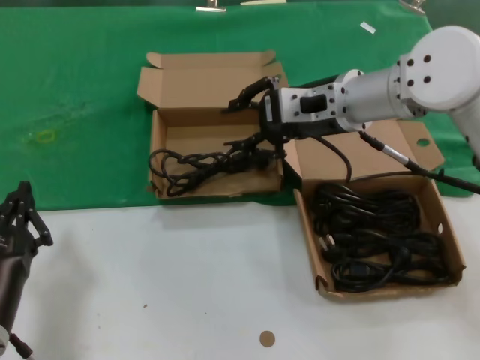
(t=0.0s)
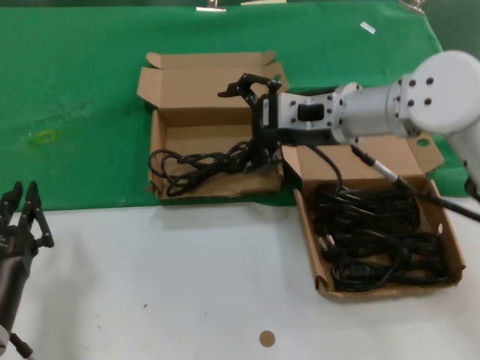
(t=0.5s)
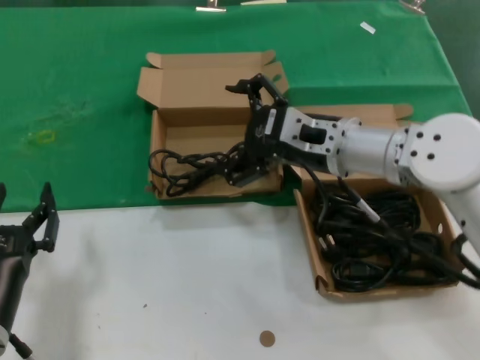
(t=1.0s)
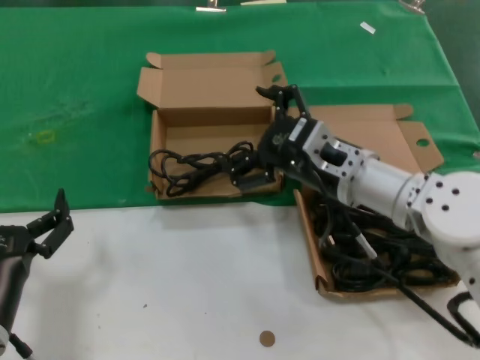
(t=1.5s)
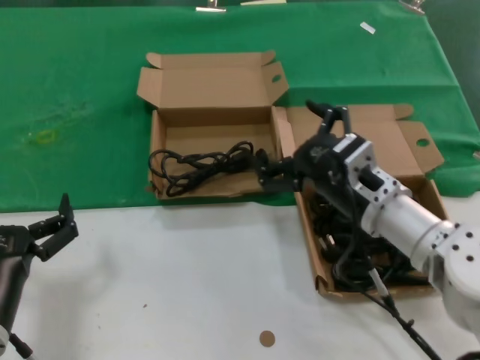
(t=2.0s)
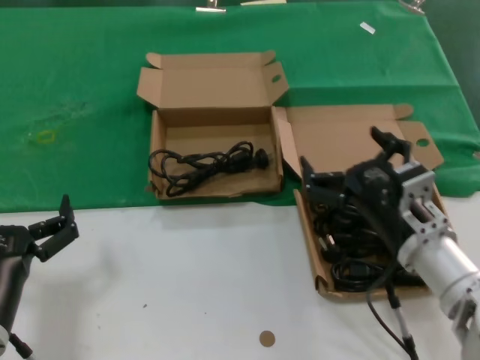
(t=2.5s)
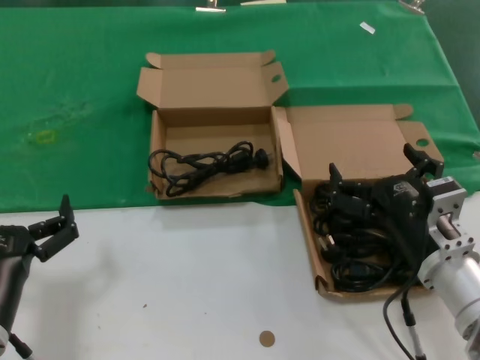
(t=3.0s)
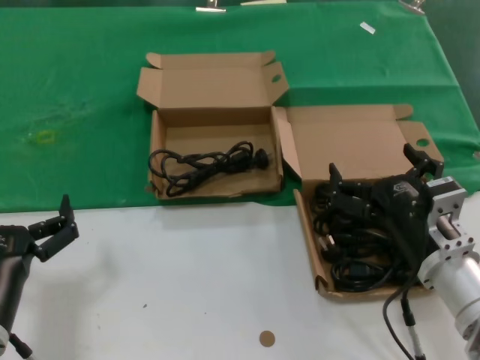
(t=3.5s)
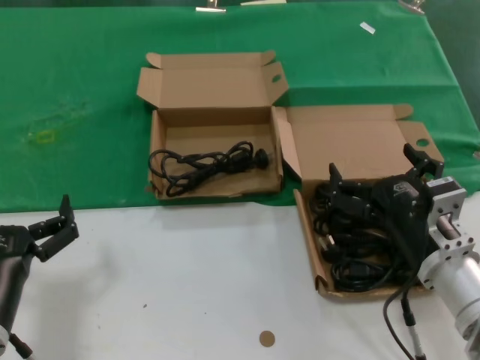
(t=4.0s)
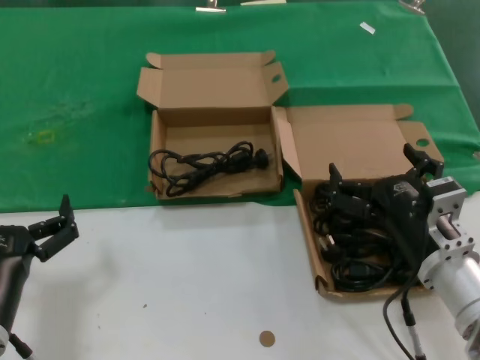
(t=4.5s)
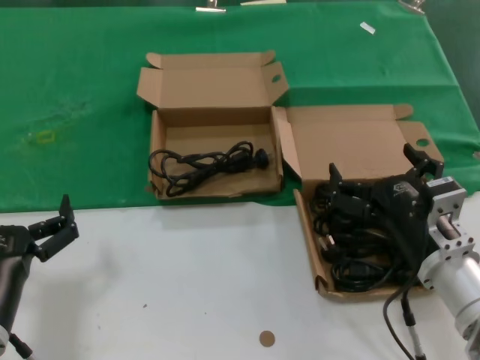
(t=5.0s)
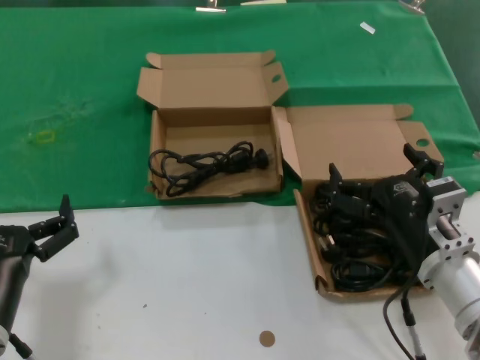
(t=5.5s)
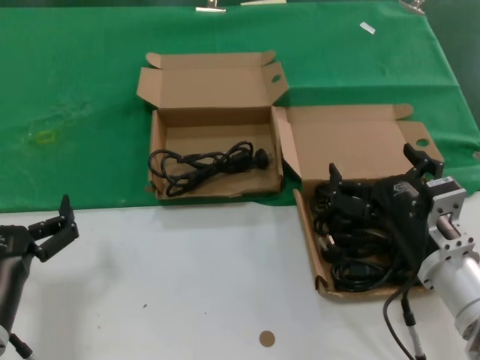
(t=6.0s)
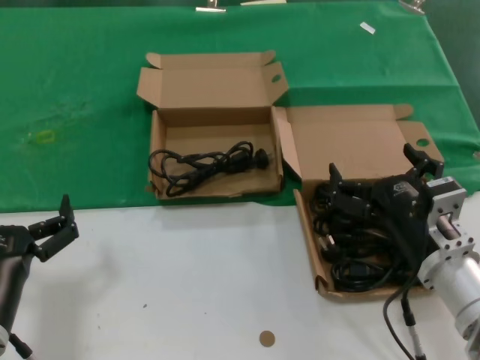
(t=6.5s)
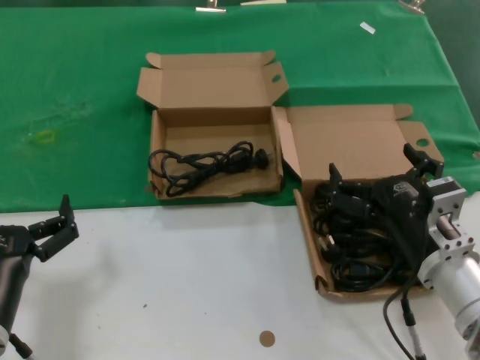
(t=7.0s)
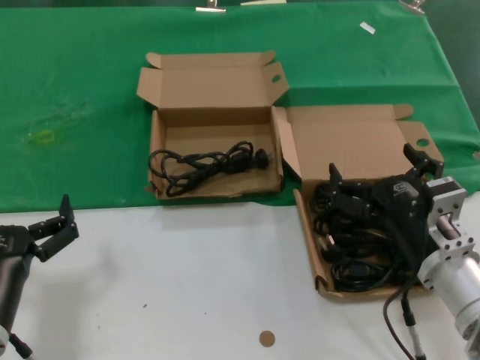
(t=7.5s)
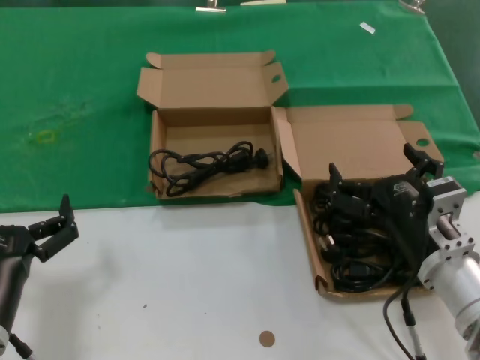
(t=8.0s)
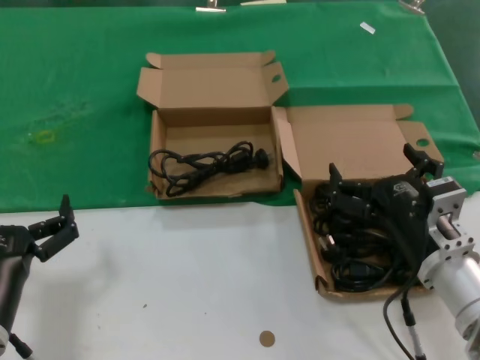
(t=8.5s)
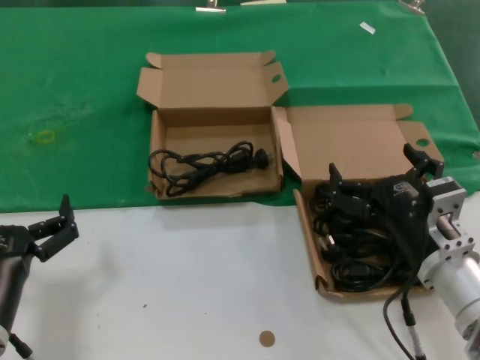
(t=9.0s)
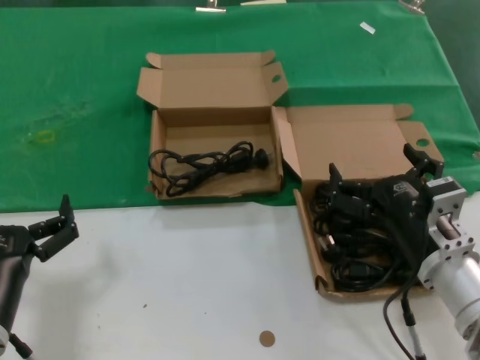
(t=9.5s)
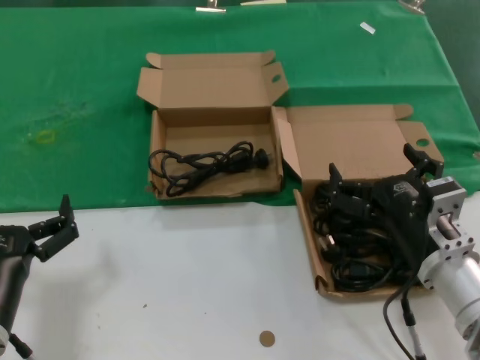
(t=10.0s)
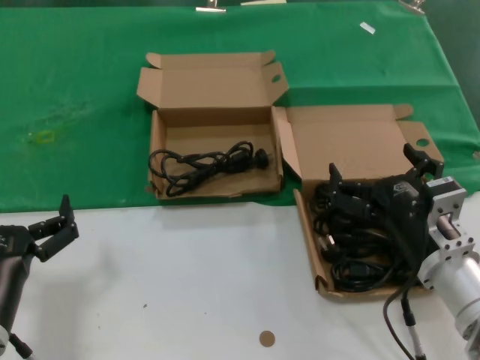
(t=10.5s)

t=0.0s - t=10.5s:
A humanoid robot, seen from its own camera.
Task of the whole recording: take the parts from the box containing them and put them into an empty box.
t=0.0s - t=2.0s: The right hand shifts roughly 20 cm downward and backward.
t=2.0s - t=4.0s: The right hand moves backward, about 10 cm.
t=4.0s - t=10.5s: Neither hand changes place.

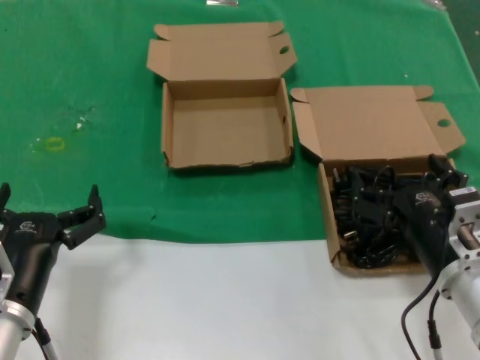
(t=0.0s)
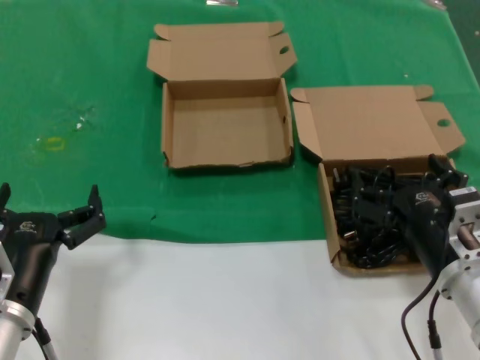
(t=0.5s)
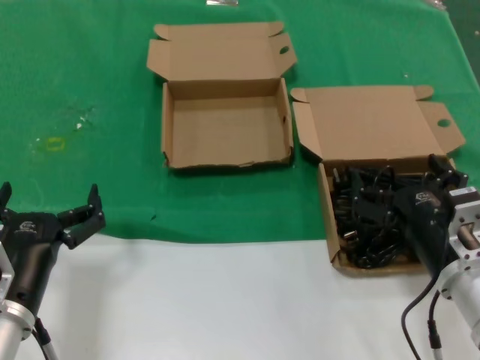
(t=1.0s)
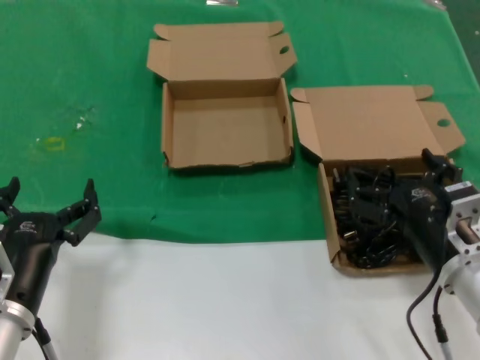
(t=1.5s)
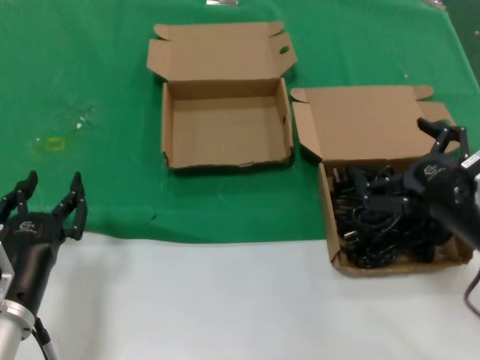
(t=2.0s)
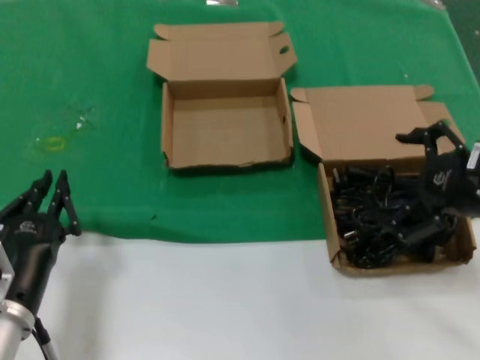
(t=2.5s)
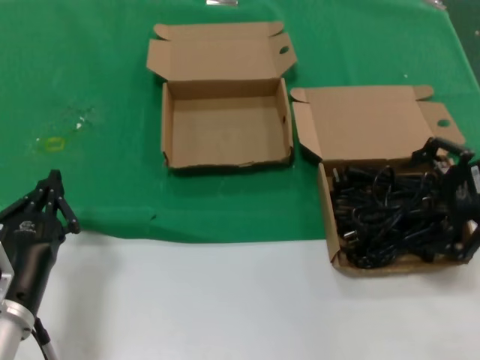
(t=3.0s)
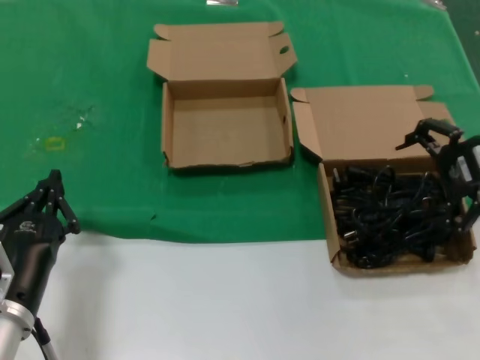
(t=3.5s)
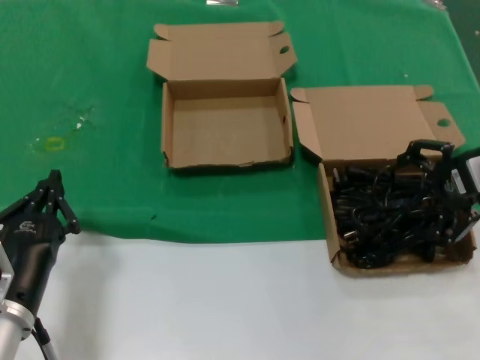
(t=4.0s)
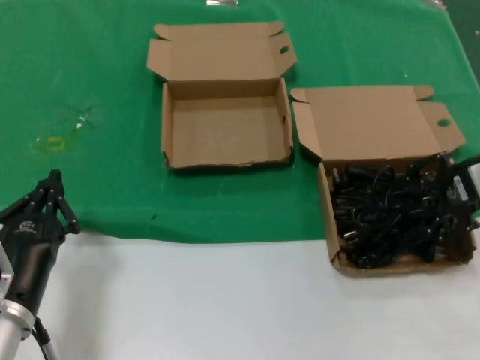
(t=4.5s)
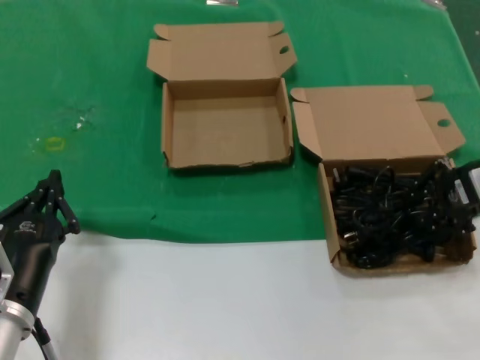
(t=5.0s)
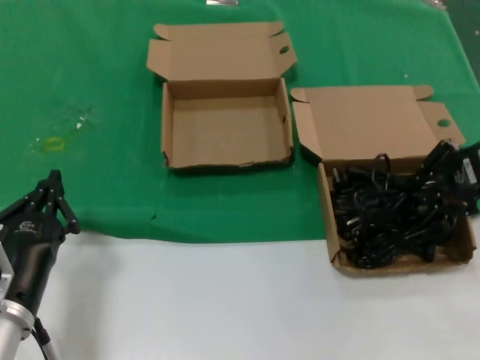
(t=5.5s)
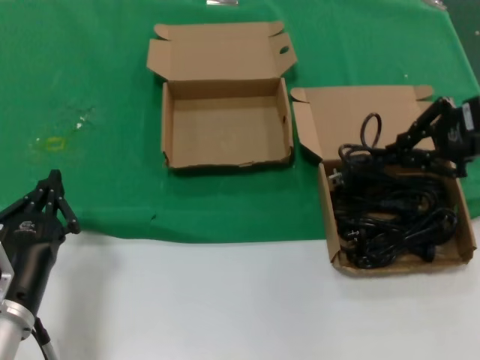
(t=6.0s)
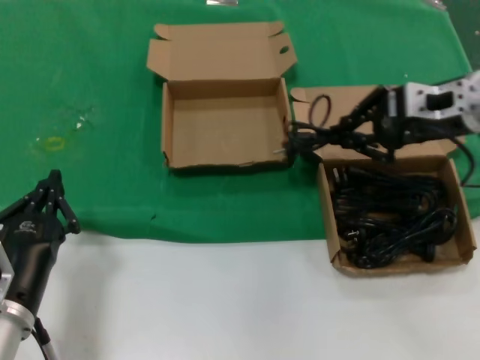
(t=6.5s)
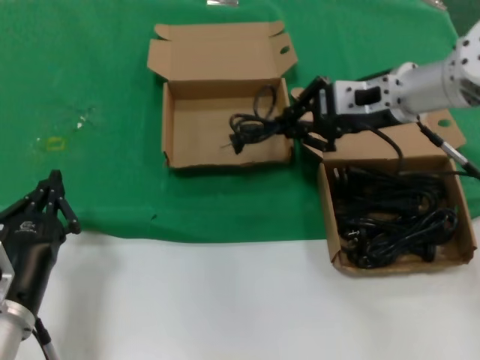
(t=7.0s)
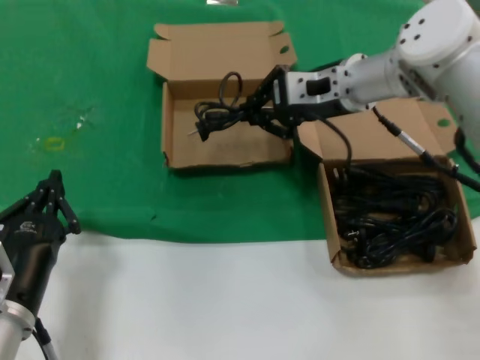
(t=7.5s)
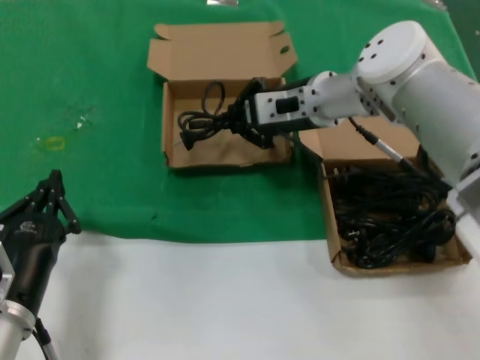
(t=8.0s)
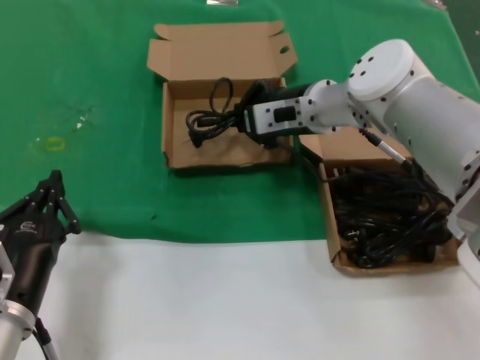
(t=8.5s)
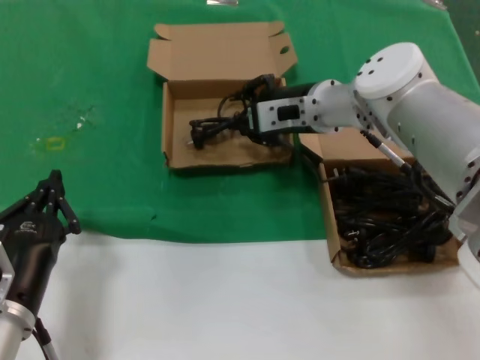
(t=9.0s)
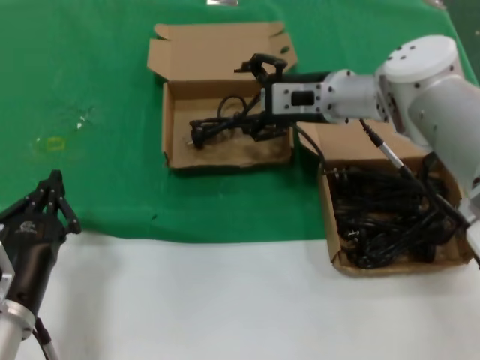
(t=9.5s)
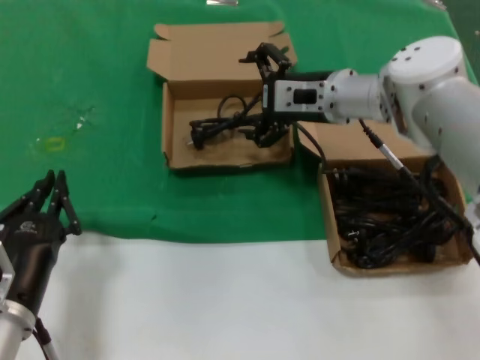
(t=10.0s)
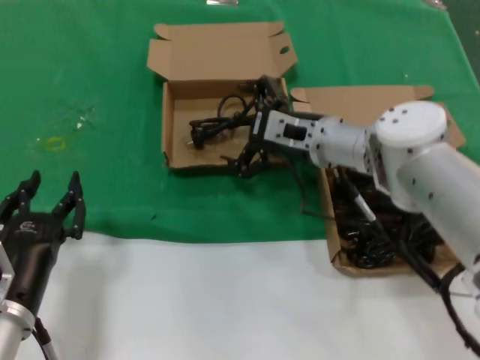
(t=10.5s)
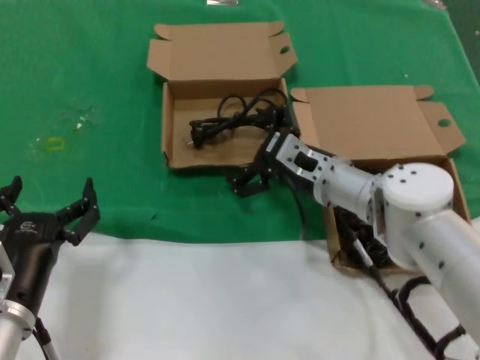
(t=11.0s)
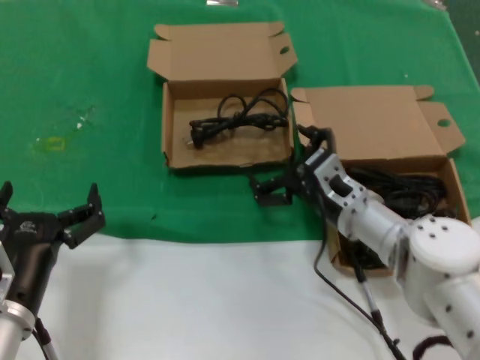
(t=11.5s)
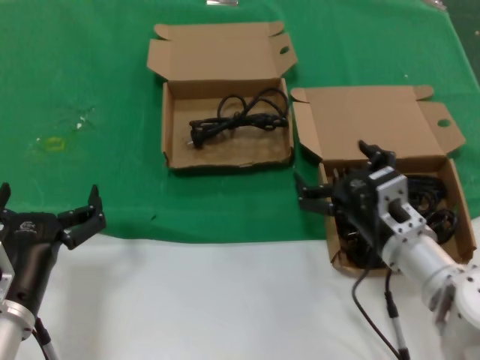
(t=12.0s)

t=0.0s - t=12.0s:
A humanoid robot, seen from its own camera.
Task of the whole recording: take the parts from the box containing them and put them into an empty box.
Step, t=0.0s - t=4.5s: Grasp the data cable.
Step, t=5.0s - t=8.5s: Place the data cable in the another box.
t=0.0s - t=2.0s: The right hand travels upward and to the right by about 10 cm.
t=2.0s - t=4.0s: The right hand goes roughly 20 cm forward, upward and to the right.
t=4.0s - t=6.0s: The right hand heads upward, covering roughly 5 cm.
t=6.0s - t=8.0s: The right hand goes about 25 cm to the left and forward.
t=8.0s - t=10.0s: The hands stay close to where they were, moving slightly.
t=10.0s - t=12.0s: The right hand heads backward and downward, covering some 25 cm.

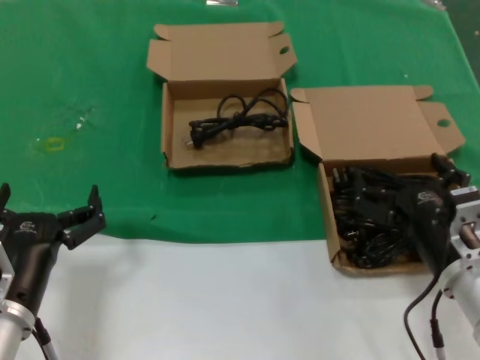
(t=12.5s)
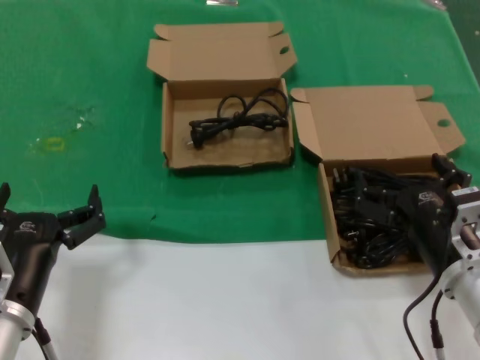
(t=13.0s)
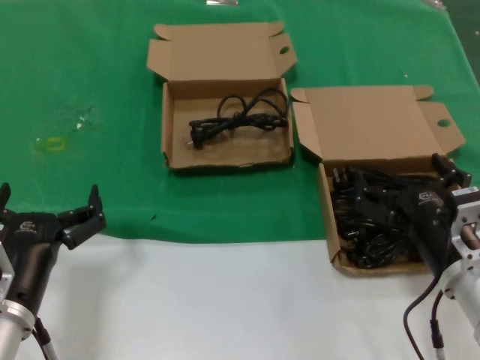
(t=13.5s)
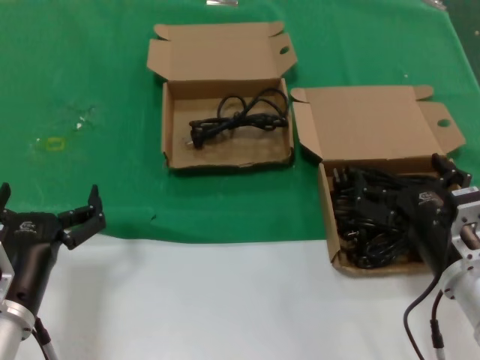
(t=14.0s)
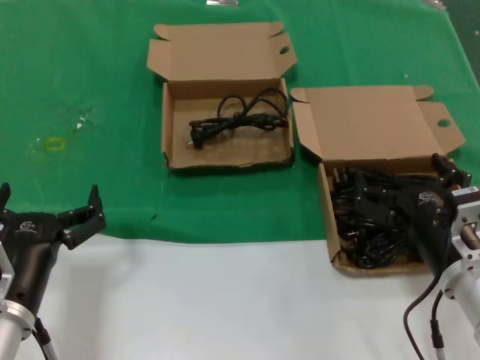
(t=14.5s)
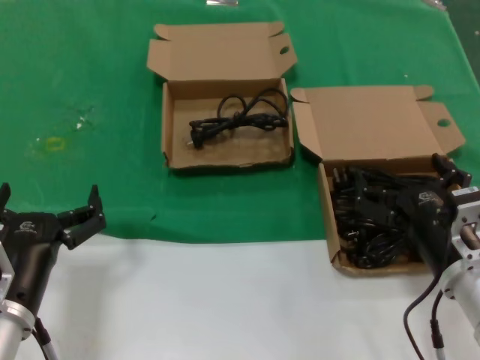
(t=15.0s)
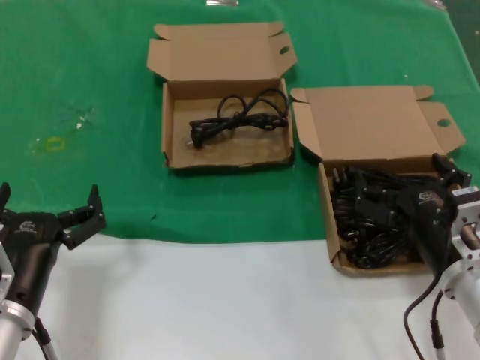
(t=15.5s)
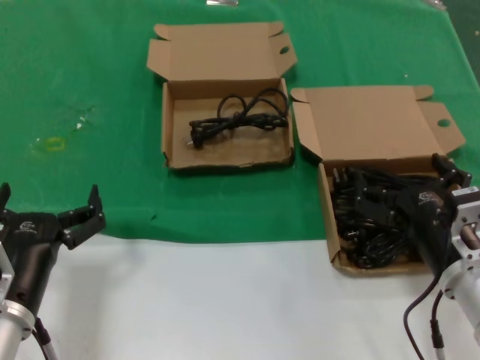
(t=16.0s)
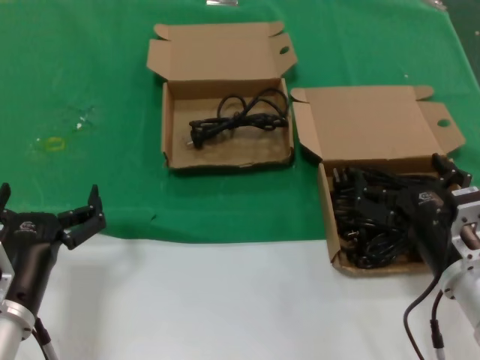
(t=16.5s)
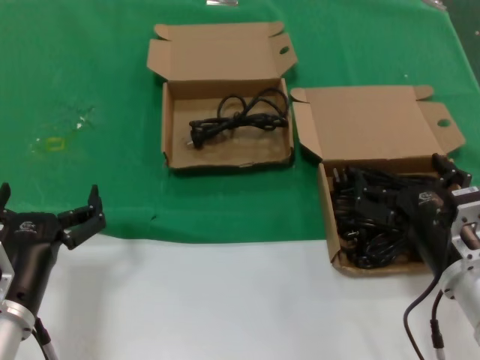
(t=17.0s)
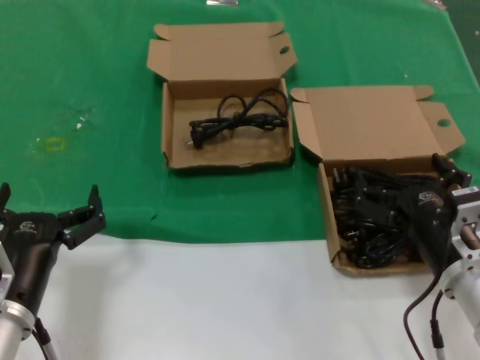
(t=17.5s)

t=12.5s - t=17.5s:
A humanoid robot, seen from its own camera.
Task of the whole recording: take the parts from the box containing them and put them into an empty box.
t=12.5s - t=17.5s: Neither hand changes place.
